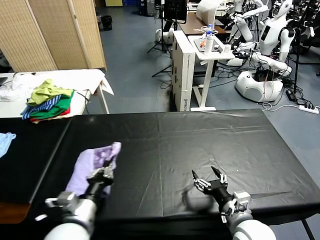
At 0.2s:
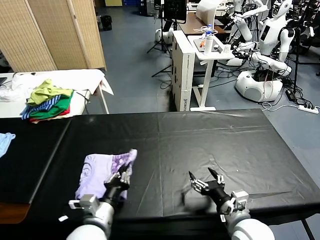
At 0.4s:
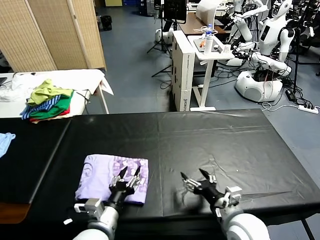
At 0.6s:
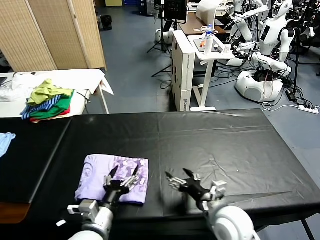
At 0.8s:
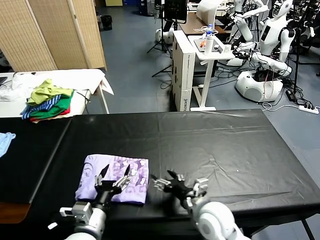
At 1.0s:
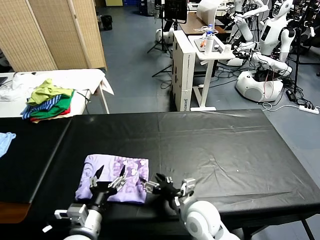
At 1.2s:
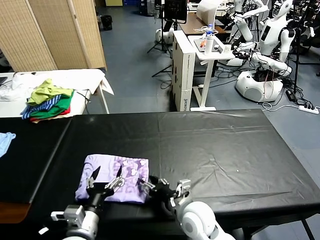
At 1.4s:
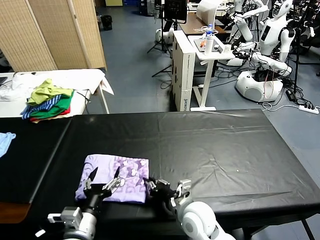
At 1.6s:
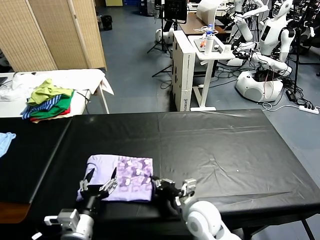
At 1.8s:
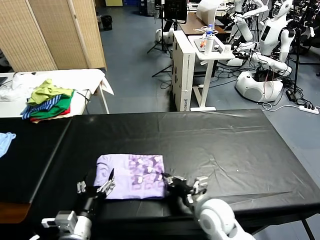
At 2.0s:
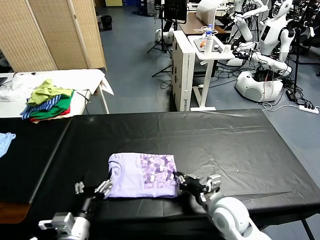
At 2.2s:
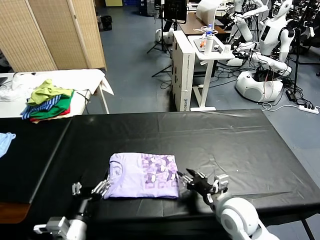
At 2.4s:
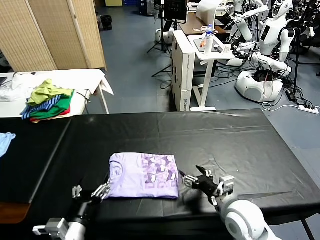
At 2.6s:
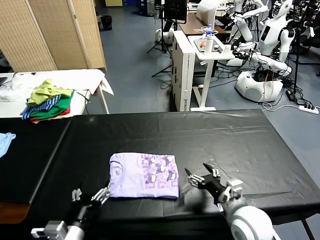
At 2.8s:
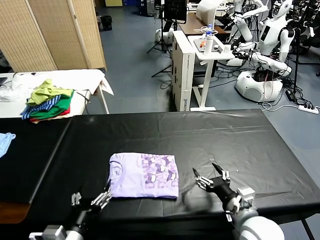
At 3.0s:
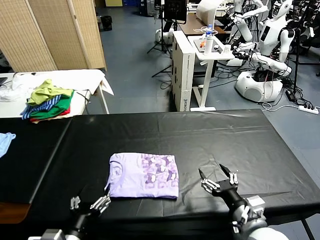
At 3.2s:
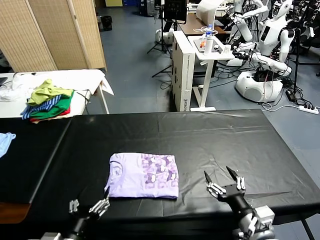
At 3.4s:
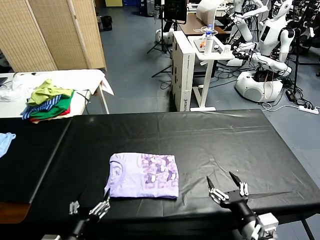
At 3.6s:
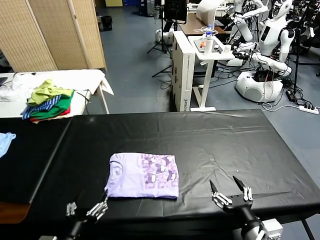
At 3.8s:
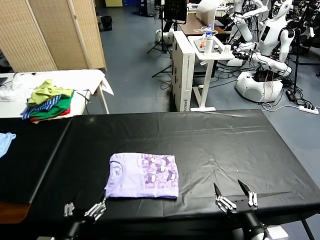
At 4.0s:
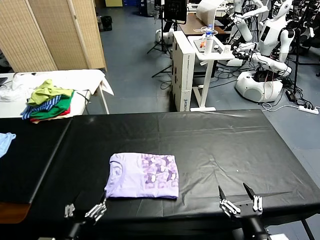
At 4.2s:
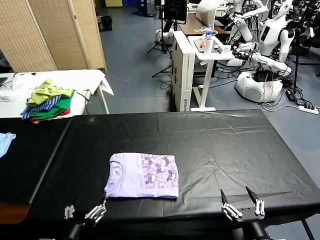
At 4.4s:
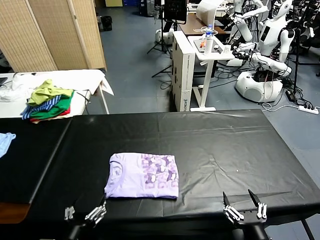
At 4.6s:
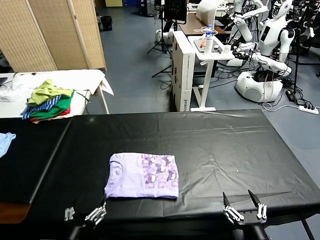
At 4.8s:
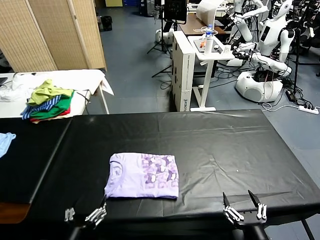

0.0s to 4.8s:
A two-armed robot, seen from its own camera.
Task of the whole recording: fold and organize the clothes.
Step, 0.6s to 2.2s: Drag the clothes to the center of the table.
0.0s to 1.6s: The left gripper opens its fingers, while the right gripper shifts roughly 15 cm to the left and forward, and closes up.
1.6s to 3.2s: The left gripper goes about 5 cm backward, while the right gripper is displaced to the right, backward and upward by approximately 20 cm, and opens.
3.2s to 4.8s: The right gripper travels backward by about 10 cm.

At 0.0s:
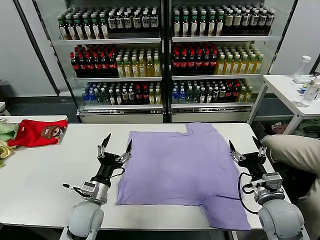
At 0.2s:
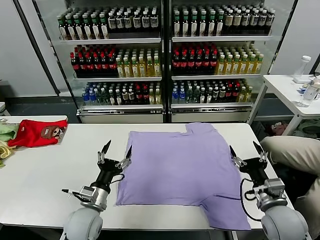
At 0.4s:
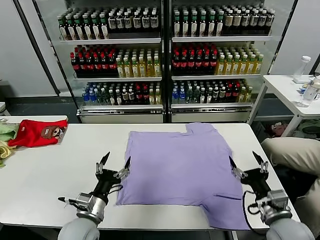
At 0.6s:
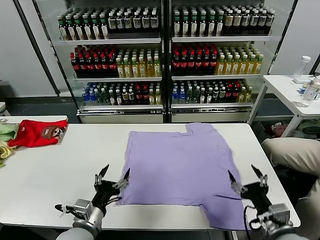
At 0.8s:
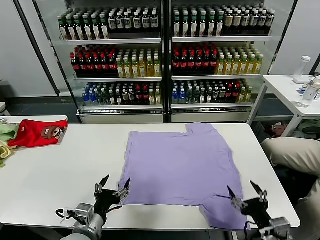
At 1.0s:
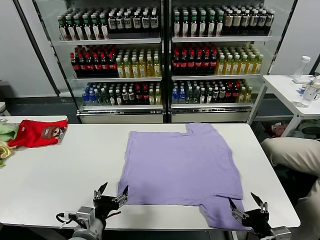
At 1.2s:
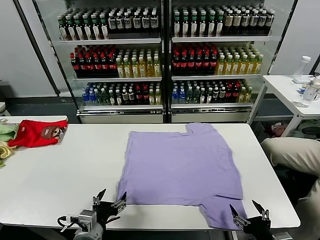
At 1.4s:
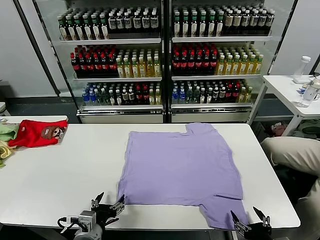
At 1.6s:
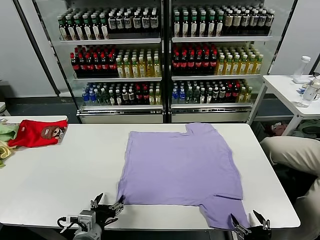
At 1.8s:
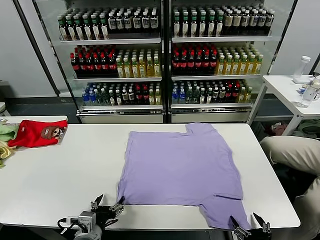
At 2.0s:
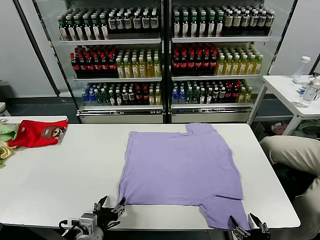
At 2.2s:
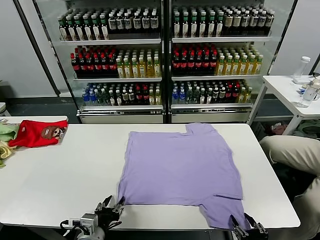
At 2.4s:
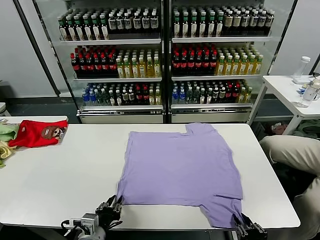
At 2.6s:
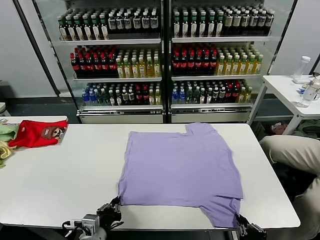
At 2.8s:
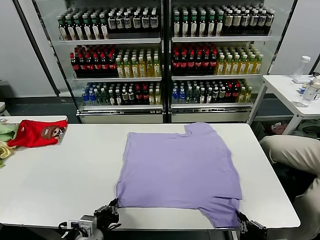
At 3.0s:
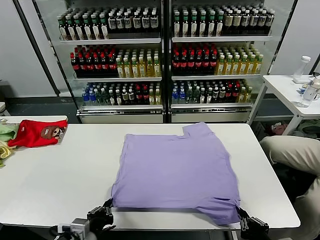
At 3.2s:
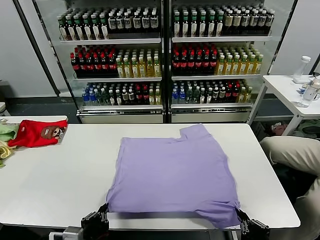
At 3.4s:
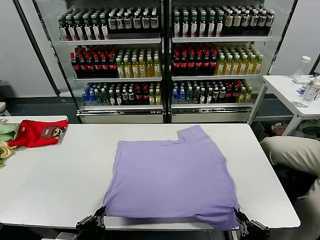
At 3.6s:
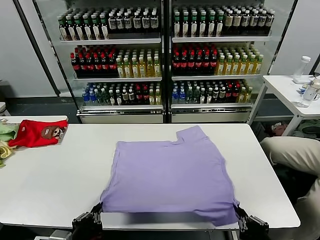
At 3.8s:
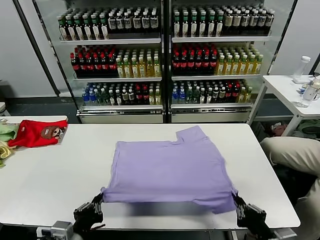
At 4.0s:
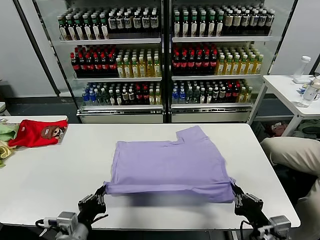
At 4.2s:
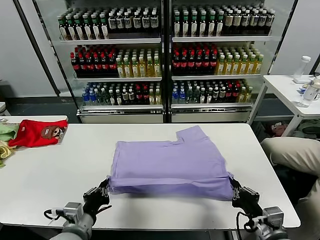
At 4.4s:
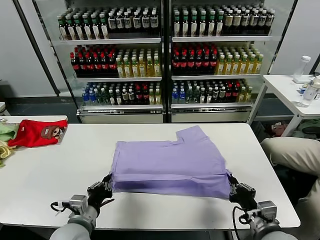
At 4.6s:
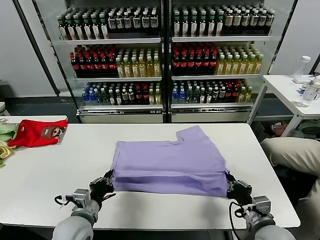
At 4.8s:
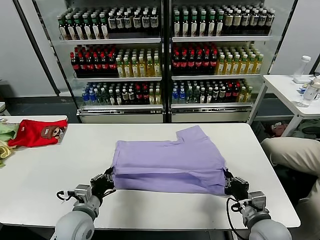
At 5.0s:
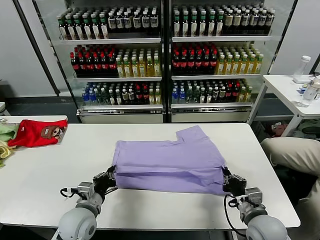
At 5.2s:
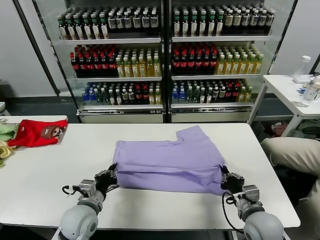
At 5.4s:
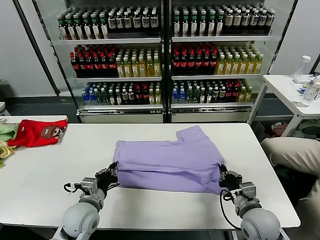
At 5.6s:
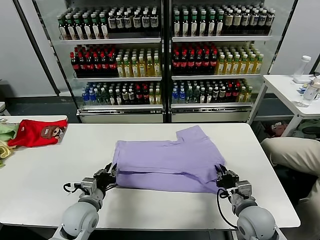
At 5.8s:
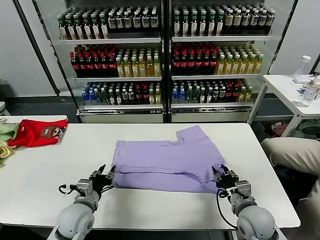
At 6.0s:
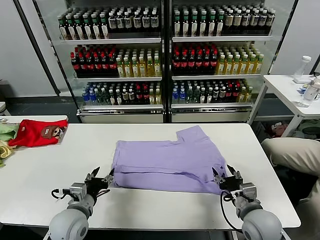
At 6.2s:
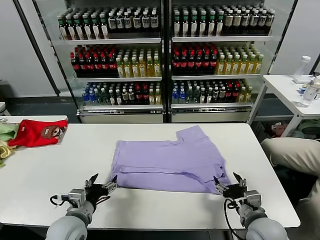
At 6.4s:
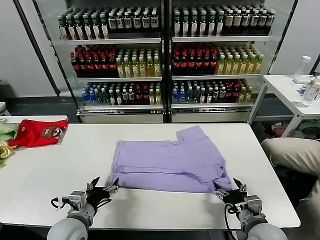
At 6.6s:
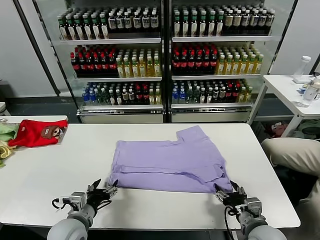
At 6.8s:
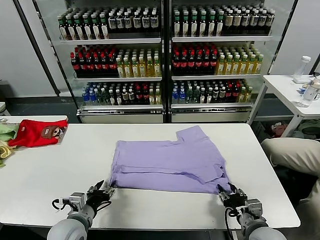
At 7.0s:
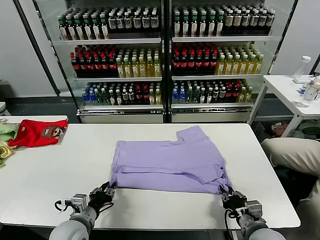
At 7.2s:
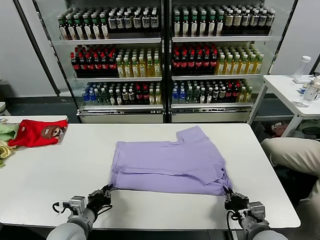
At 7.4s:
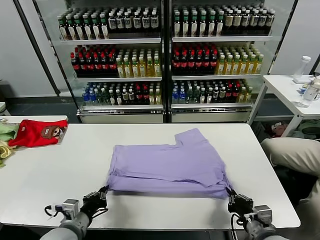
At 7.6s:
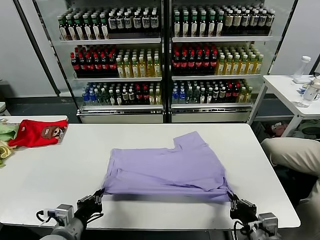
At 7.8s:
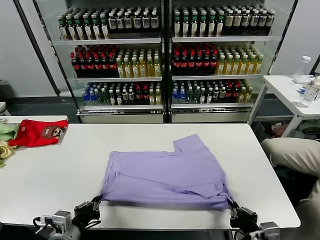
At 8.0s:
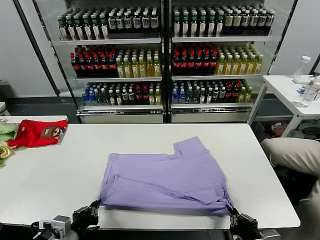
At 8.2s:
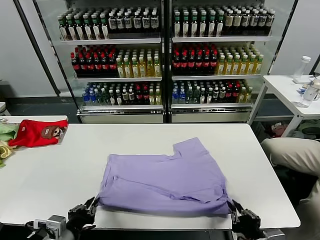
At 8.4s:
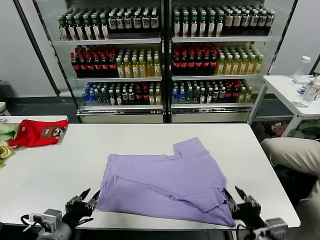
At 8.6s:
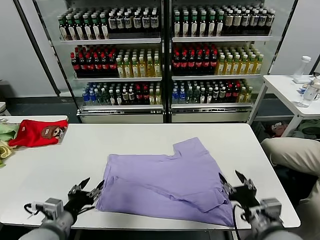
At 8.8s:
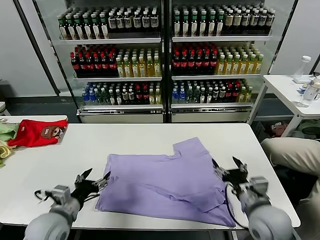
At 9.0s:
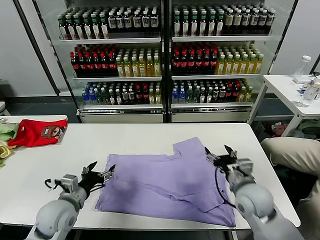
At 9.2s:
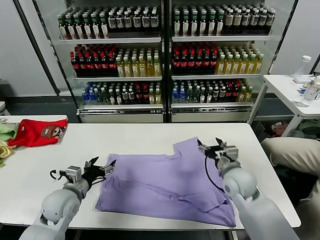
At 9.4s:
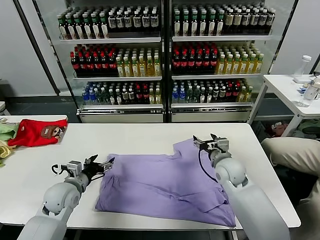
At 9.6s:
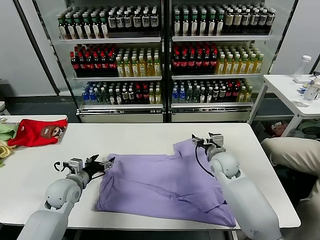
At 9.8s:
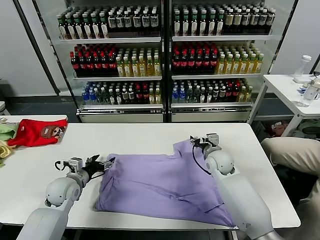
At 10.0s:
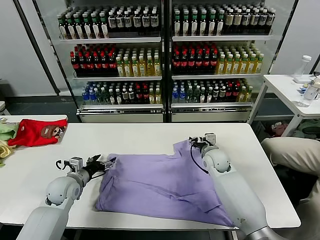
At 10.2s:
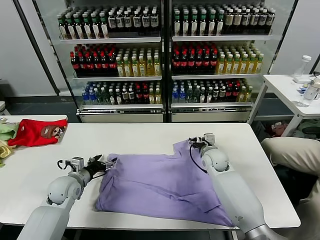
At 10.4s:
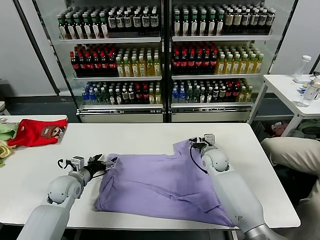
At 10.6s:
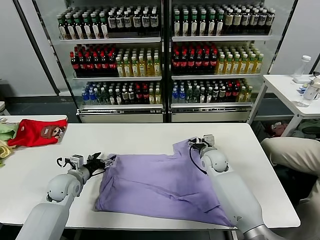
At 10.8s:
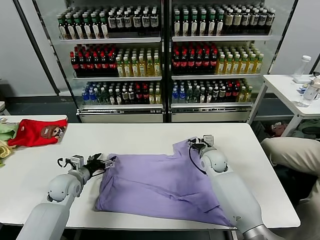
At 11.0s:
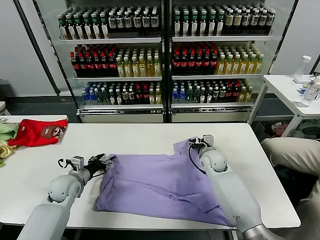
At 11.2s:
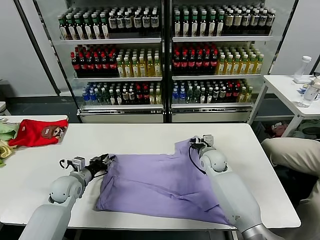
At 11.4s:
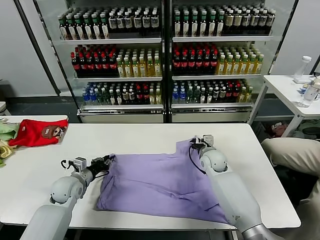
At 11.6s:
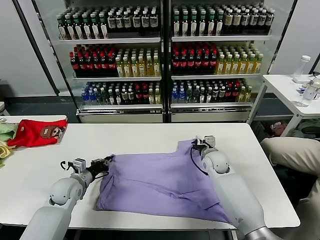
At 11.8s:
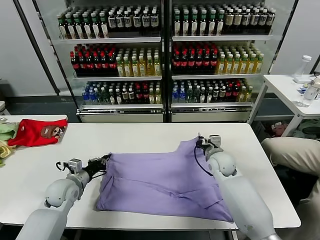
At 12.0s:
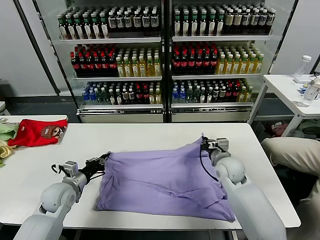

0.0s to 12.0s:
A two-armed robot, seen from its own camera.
Task of the whole recording: fold and organize the clothes.
Step, 0.0s to 2.6s: use both grippers simultaneously to clamp the lower edge of the clothing fabric.
Step, 2.8s to 6.0s: use both grippers to drag the lower edge of the fabric forward and fold it over the upper edge.
Step, 6.2s to 8.4s: Drag the clothes downward with both gripper.
Step, 8.6s to 11.6s: use both grippers simultaneously to clamp the upper edge of the clothing fabric.
1.6s to 3.0s: The right gripper shifts by about 5 cm, and closes, while the left gripper ends up about 5 cm from where it was, and closes.
3.0s to 4.4s: The two grippers go about 10 cm forward.
4.4s to 6.0s: The right gripper opens its fingers. Meanwhile the left gripper opens.
6.0s to 7.6s: The grippers both shift backward by approximately 10 cm. The right gripper closes its fingers. The left gripper closes up.
7.6s to 9.0s: The left gripper travels forward by some 10 cm, and opens its fingers; the right gripper moves forward, some 20 cm, and opens.
9.0s to 10.4s: The right gripper moves forward and downward, about 15 cm. Meanwhile the left gripper travels forward by about 10 cm.
10.4s to 12.0s: The left gripper closes up. Meanwhile the right gripper shifts about 10 cm backward, and closes.

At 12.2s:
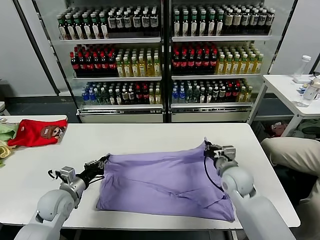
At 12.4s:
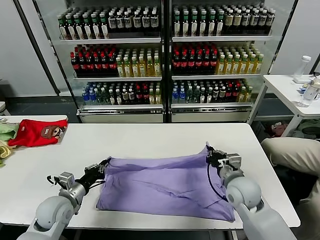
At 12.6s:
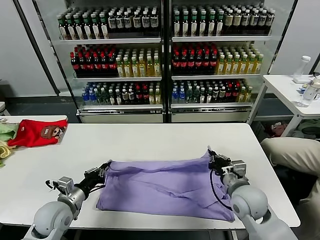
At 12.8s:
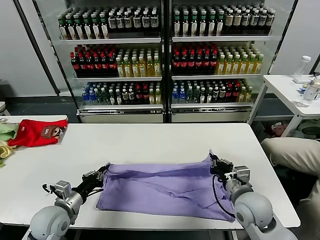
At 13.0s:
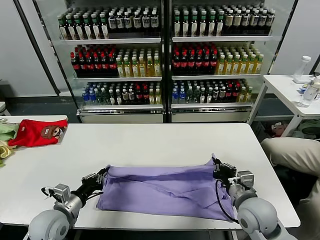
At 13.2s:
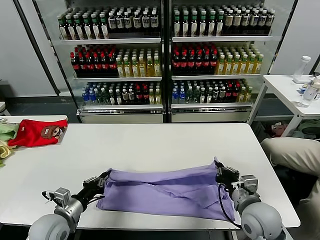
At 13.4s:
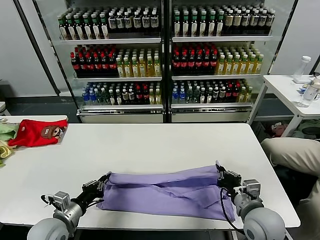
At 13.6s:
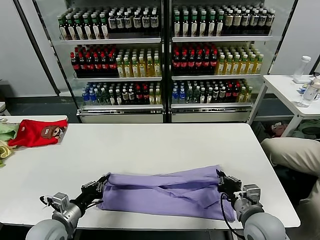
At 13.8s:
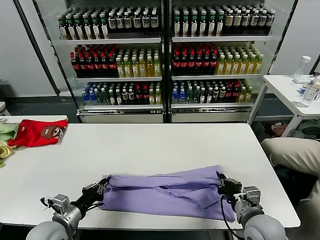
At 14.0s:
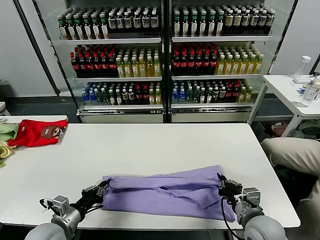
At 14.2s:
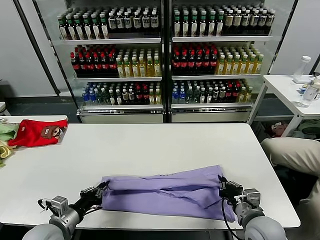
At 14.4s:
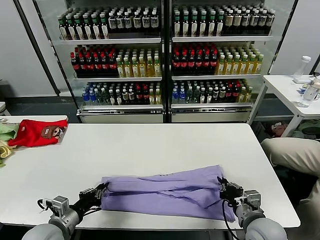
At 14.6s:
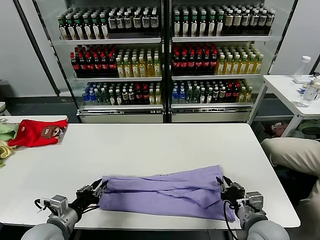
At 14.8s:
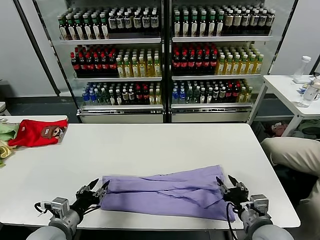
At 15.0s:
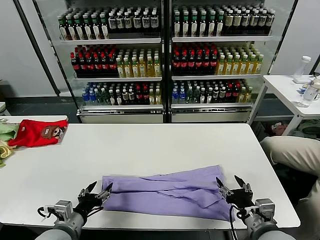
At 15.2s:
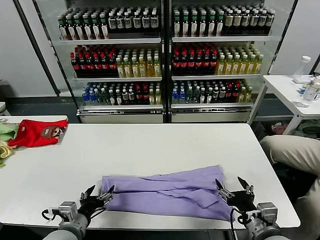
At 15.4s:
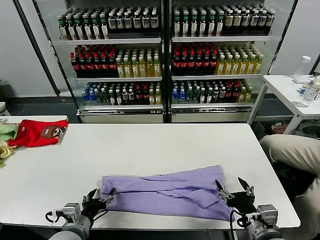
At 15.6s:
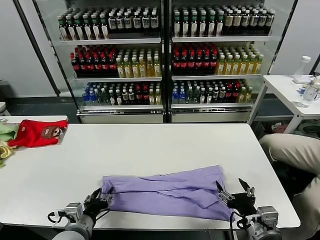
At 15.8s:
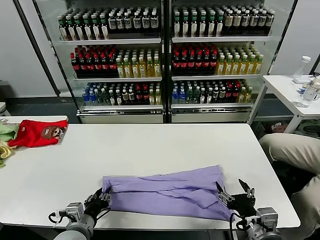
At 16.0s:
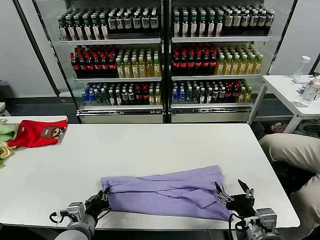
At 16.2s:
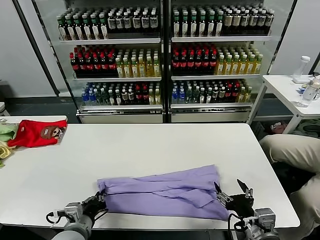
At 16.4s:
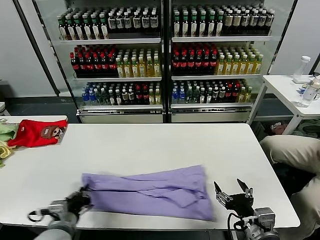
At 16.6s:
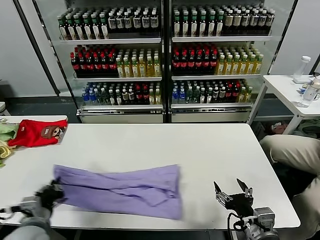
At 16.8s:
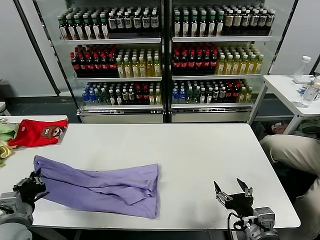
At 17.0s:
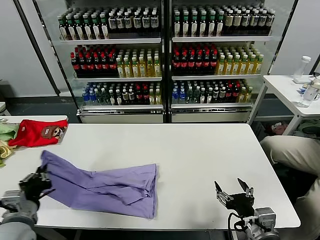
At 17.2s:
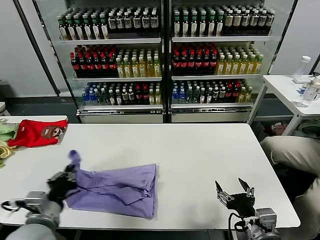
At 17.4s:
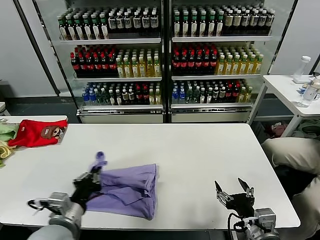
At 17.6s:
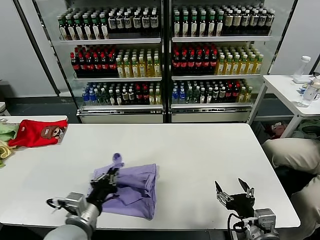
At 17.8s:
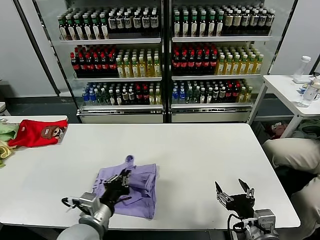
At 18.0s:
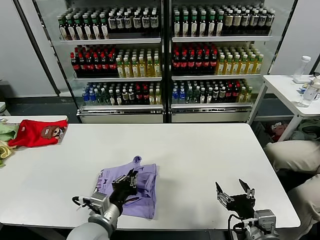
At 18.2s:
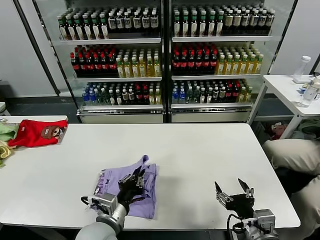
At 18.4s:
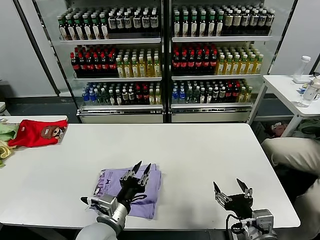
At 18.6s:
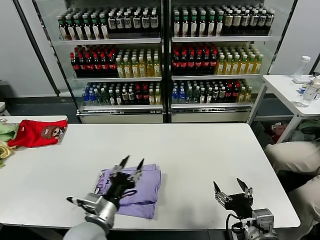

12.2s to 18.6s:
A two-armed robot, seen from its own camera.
Task of the whole recording: fold and organize the clothes.
Step, 12.2s to 15.0s: use both grippers to drag the upper edge of the fabric backward and fold it over the lower edge.
Step, 15.2s to 16.0s: use the left gripper to clamp the left edge of the fabric.
Step, 16.2s to 18.4s: use the left gripper to drag the left edge of the fabric to the left and folds it over the right edge.
12.2s to 13.8s: The two grippers go approximately 10 cm backward.
13.8s to 15.4s: The right gripper heads backward, covering roughly 5 cm, and opens its fingers, while the left gripper heads to the right, covering about 5 cm, and opens up.
15.4s to 17.0s: The left gripper shifts some 15 cm upward and to the left, and closes up.
17.0s to 18.6s: The left gripper travels to the right by some 15 cm, and opens up.
